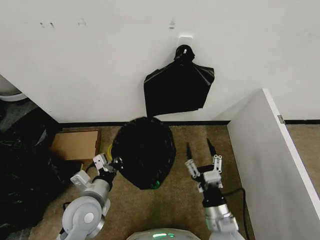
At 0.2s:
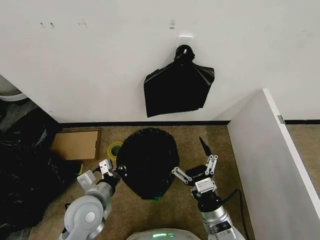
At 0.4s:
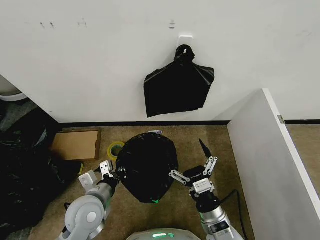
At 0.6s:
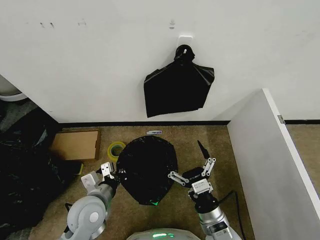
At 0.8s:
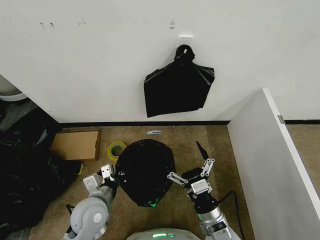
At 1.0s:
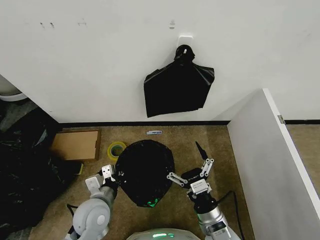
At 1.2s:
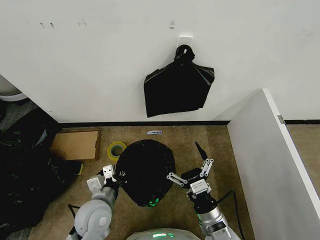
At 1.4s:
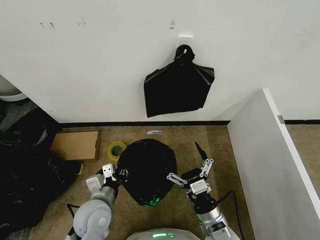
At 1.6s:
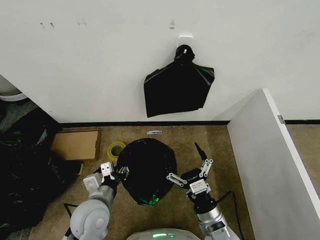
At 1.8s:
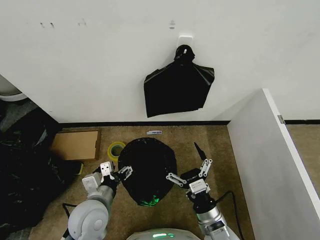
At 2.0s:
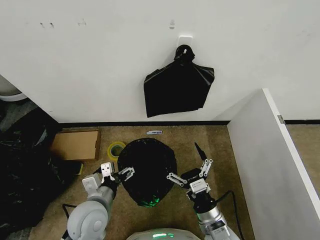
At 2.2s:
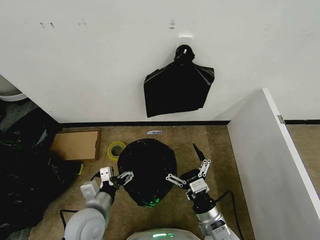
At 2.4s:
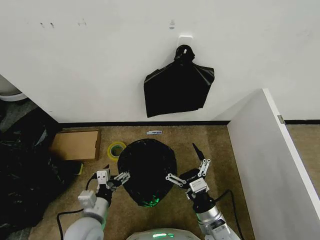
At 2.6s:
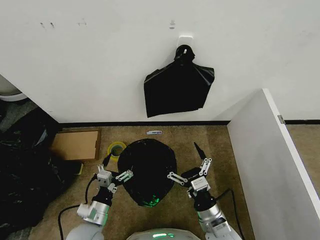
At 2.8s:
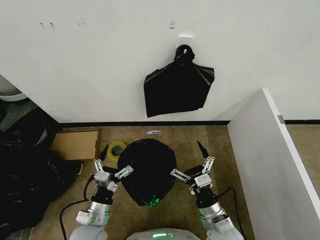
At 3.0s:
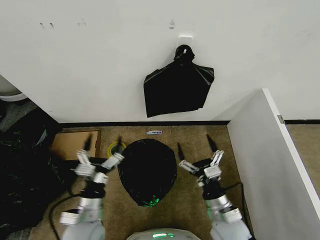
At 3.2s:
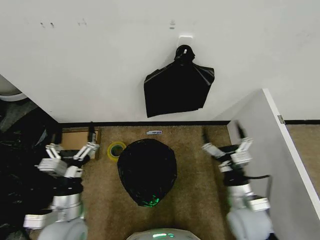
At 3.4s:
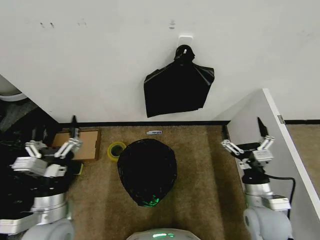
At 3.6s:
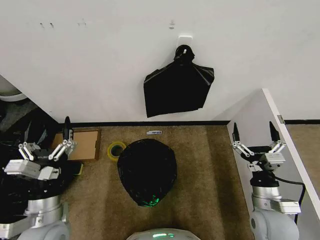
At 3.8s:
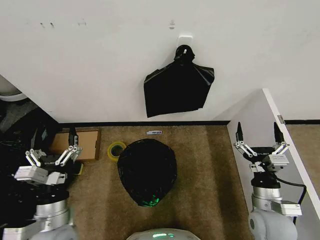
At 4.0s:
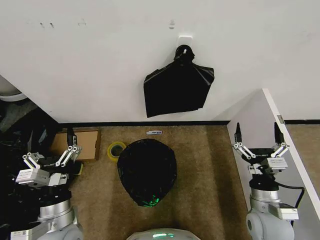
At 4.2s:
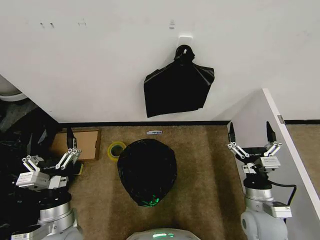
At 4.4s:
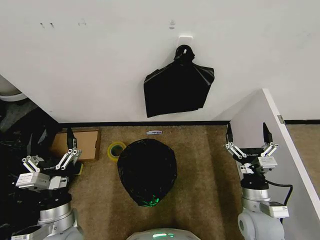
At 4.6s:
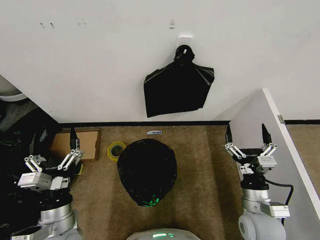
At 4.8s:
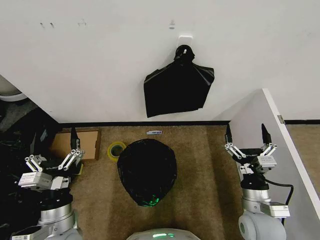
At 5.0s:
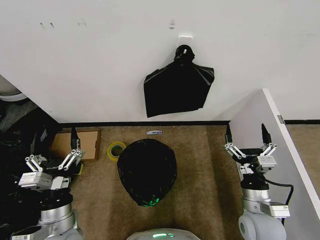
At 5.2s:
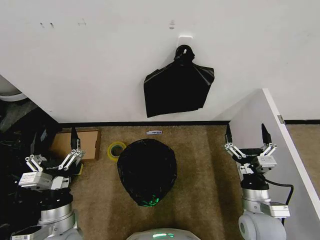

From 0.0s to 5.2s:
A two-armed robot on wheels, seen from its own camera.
Task of the whole recording: Place the garbage bag over the trash bin.
From 0.0s to 1.8s: The right gripper opens. The left gripper opens up.
From 1.8s to 3.4s: The right gripper moves to the right and upward, about 10 cm, while the left gripper travels to the left by approximately 5 cm, and travels downward and back again, approximately 10 cm each way.
From 3.4s to 5.2s: There are only small adjustments of the grippers.
